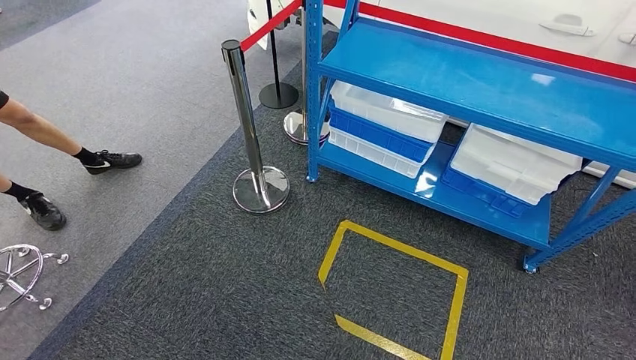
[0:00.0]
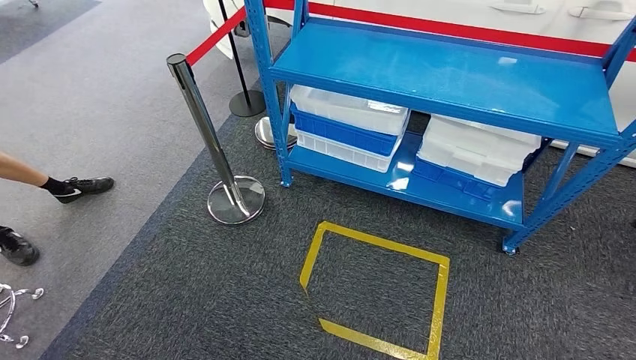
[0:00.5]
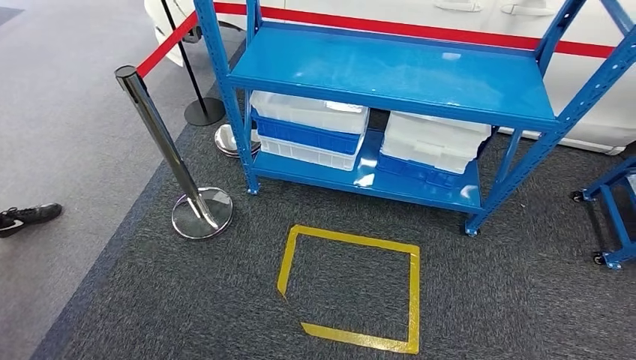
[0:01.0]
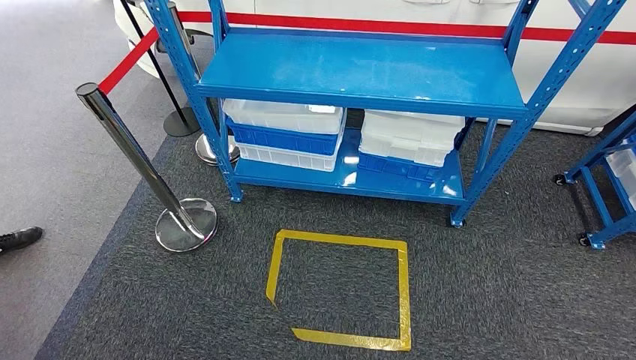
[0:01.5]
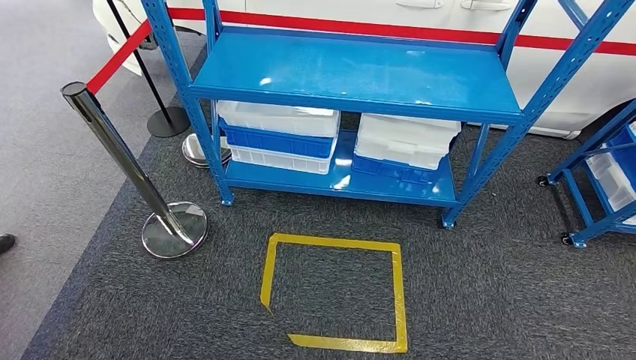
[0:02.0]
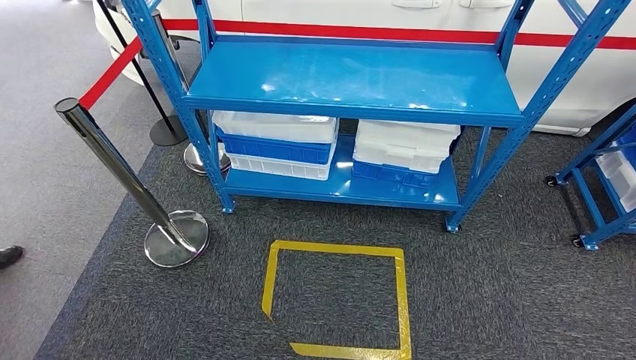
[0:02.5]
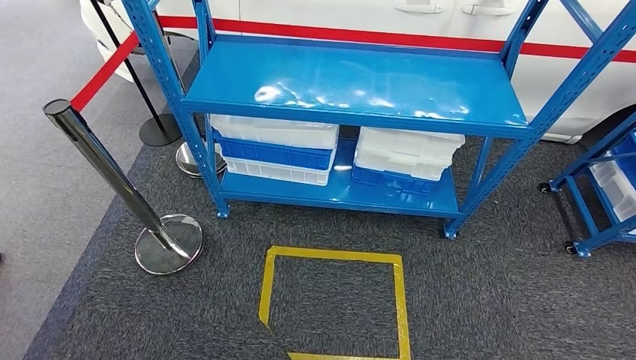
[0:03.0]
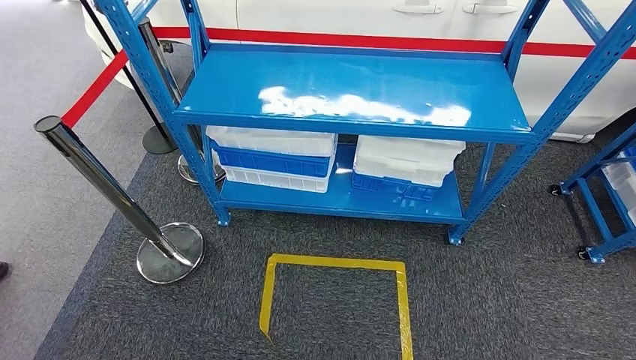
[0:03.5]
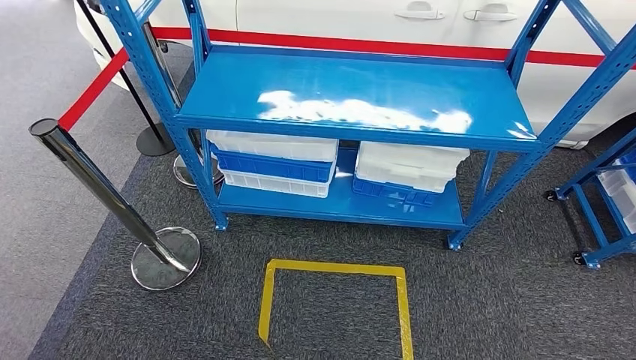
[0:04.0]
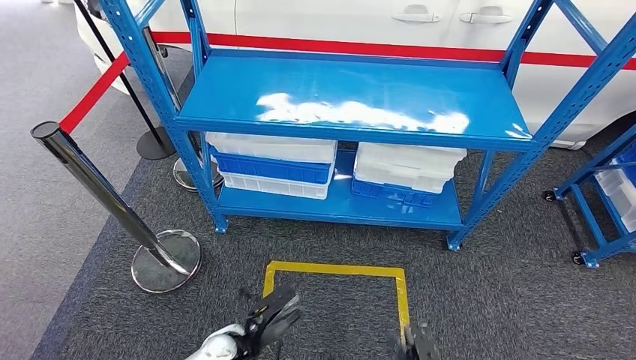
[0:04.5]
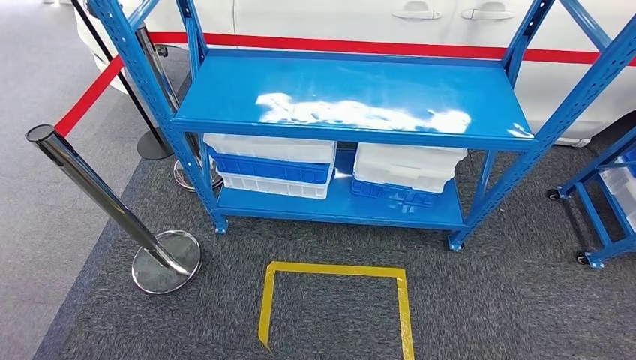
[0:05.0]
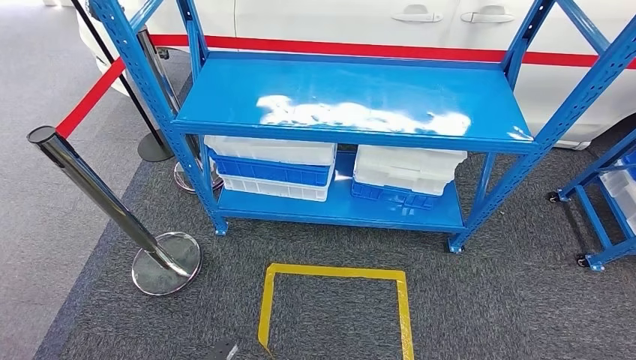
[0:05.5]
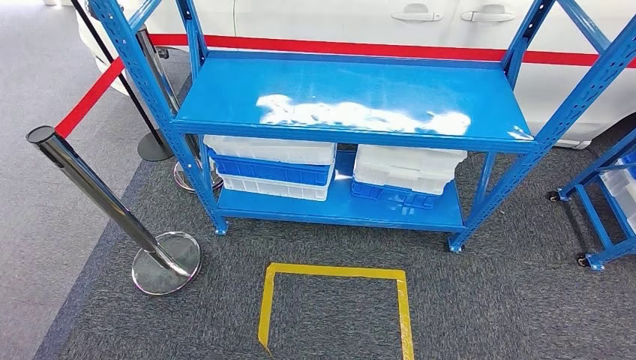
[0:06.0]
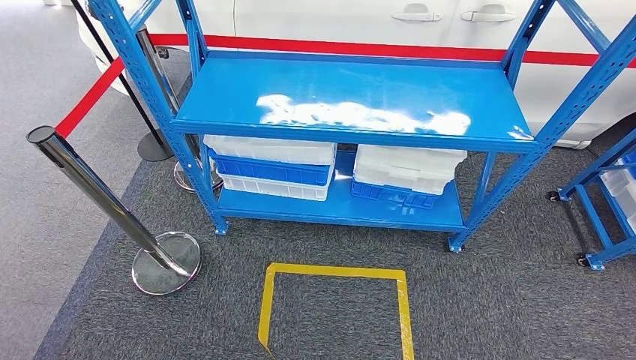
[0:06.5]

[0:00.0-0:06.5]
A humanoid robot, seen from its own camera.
Step, 0:00.0 to 0:06.5: Move to the initial position of the shelf.
